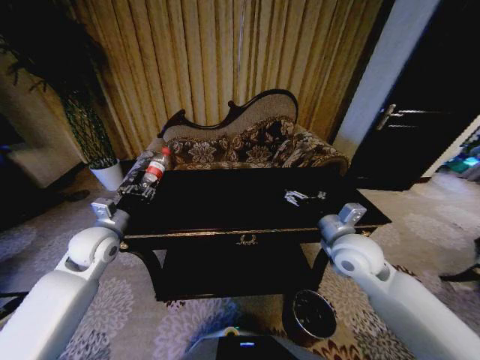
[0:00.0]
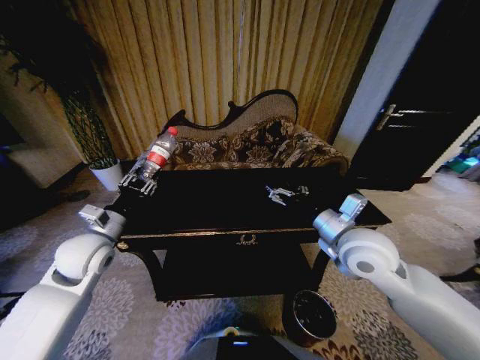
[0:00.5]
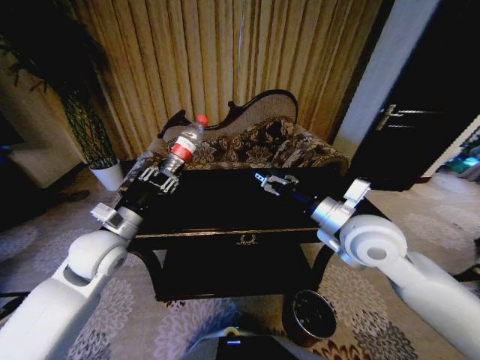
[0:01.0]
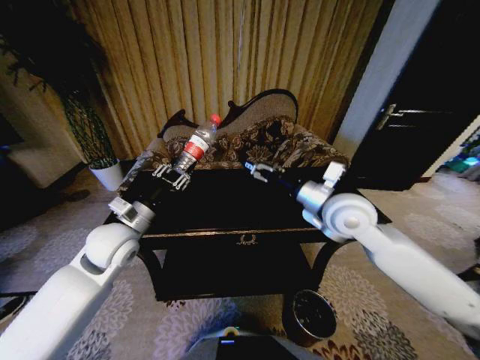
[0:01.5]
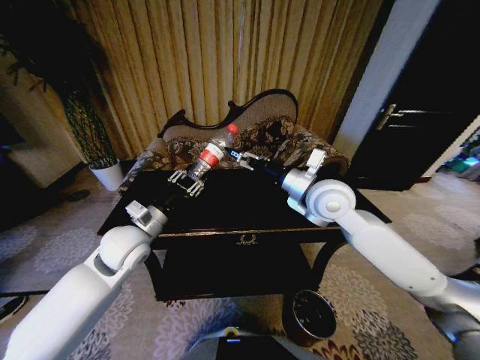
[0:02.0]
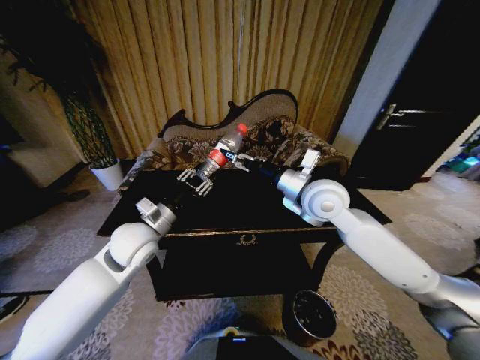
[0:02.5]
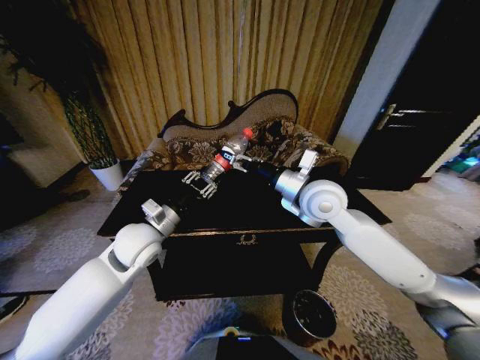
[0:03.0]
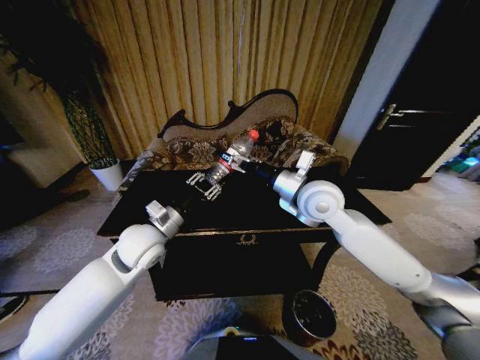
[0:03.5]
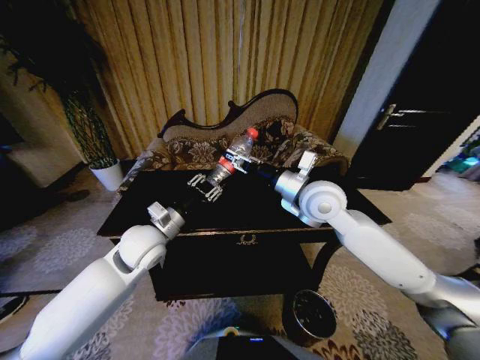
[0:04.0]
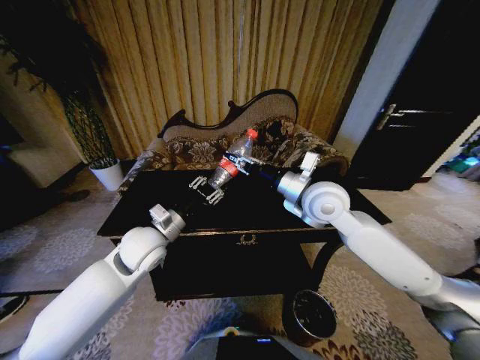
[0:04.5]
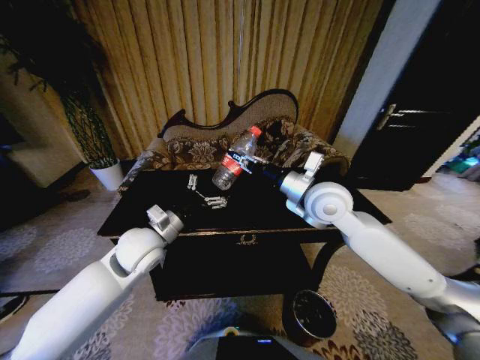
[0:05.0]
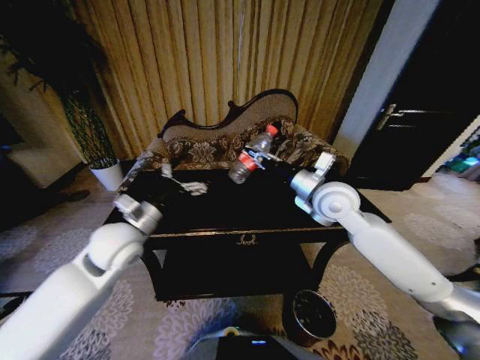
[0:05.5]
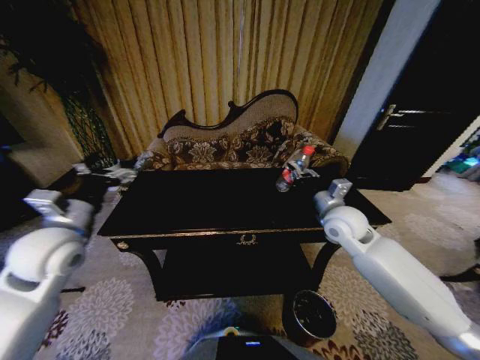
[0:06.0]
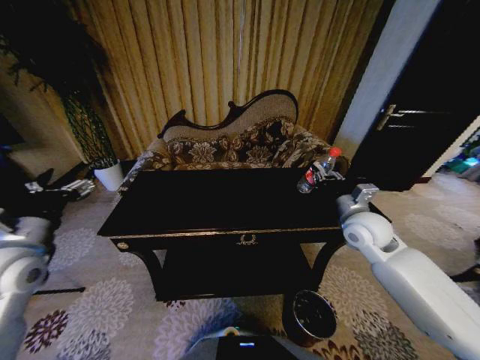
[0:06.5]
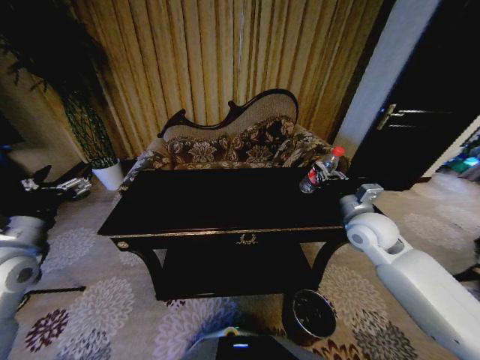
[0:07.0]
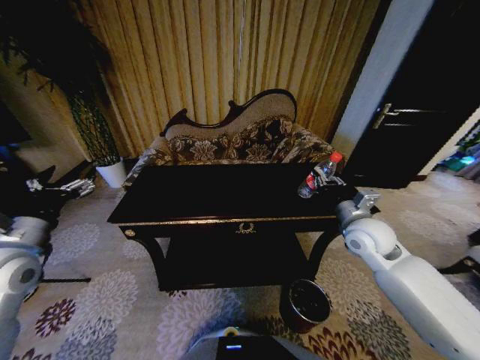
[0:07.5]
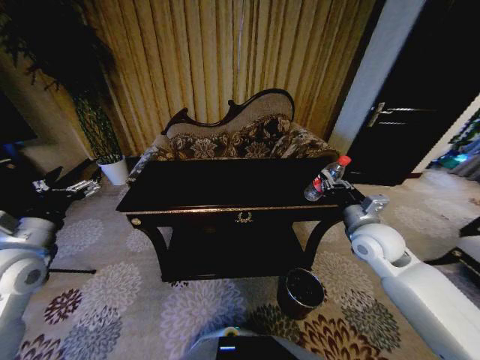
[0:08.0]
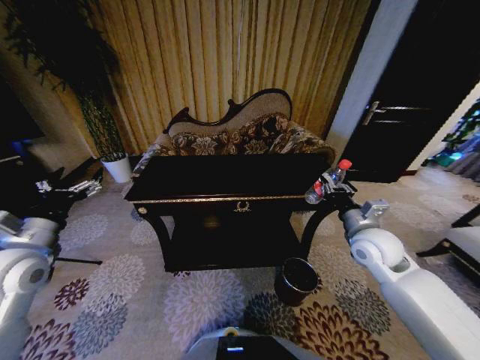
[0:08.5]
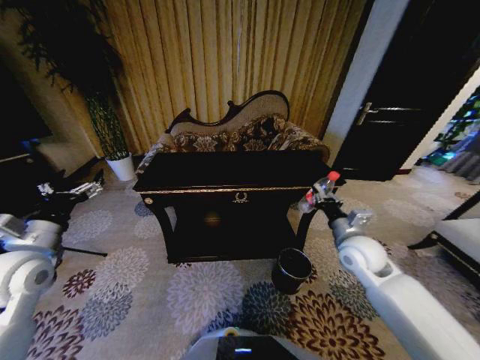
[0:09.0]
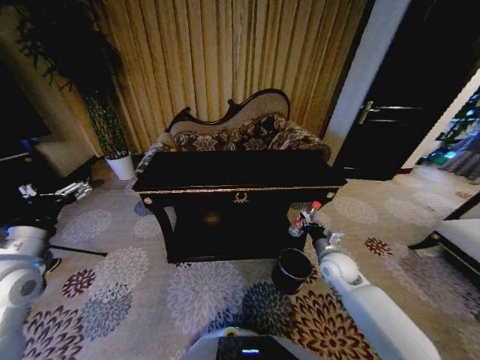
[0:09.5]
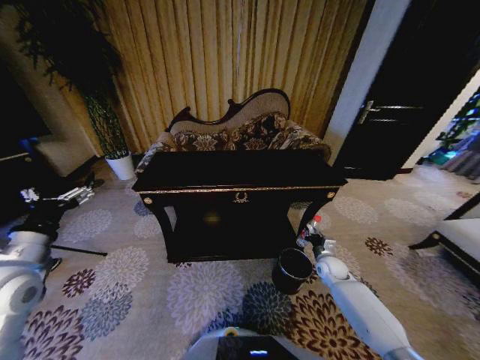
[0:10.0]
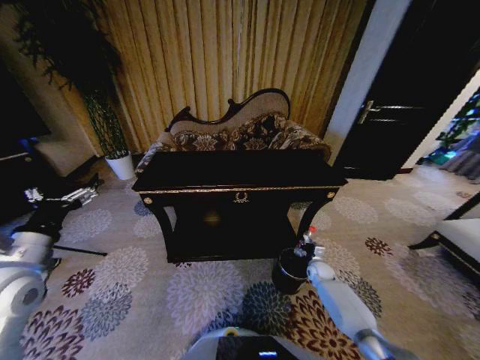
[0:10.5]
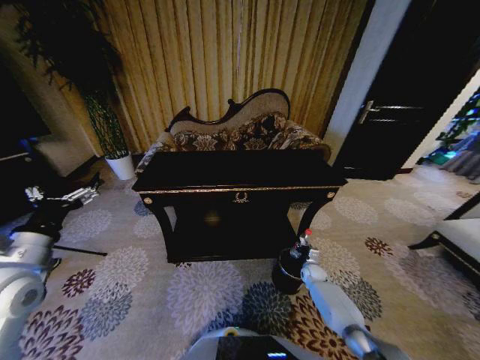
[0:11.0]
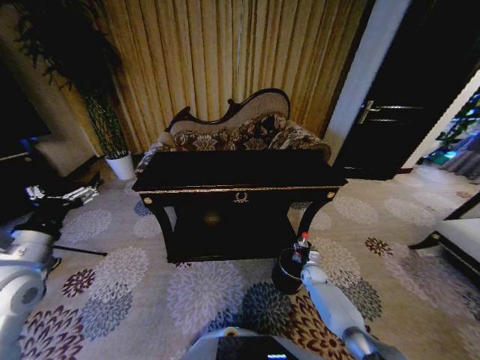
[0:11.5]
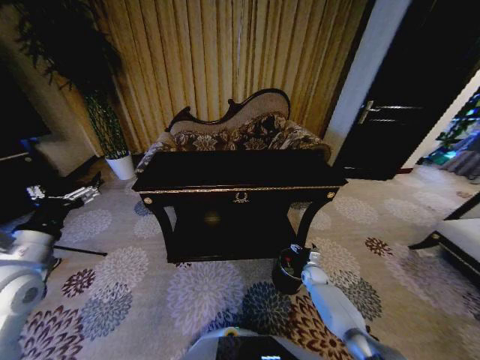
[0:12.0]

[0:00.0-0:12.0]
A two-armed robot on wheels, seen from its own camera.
Task of the whole recording: Move to the front of the table and place the trash on the table into the trash bin.
0:00.0 to 0:02.0: The left gripper shifts about 10 cm to the right; the right gripper is displaced upward, forward and to the left by approximately 15 cm.
0:02.0 to 0:04.0: The right gripper closes up.
0:04.0 to 0:06.0: The right gripper travels to the right and downward by roughly 15 cm. Meanwhile the left gripper travels to the left and upward by approximately 15 cm, and opens its fingers.
0:06.0 to 0:08.0: The right gripper goes some 10 cm to the right and backward; the left gripper shifts some 5 cm to the left.
0:08.0 to 0:10.0: The right gripper shifts approximately 25 cm downward.
0:10.0 to 0:12.0: The right gripper travels downward by about 10 cm, and opens.

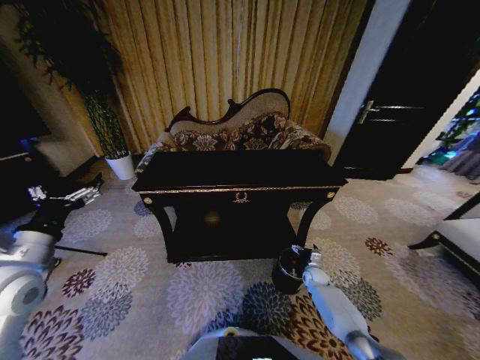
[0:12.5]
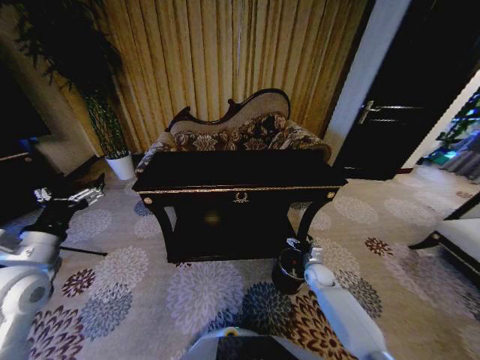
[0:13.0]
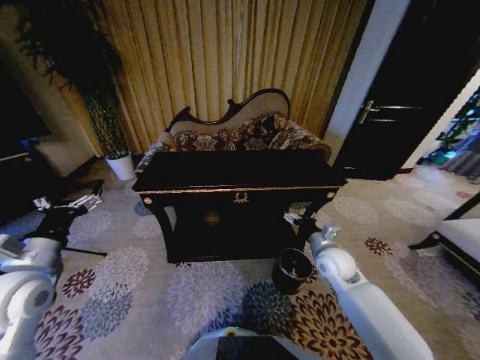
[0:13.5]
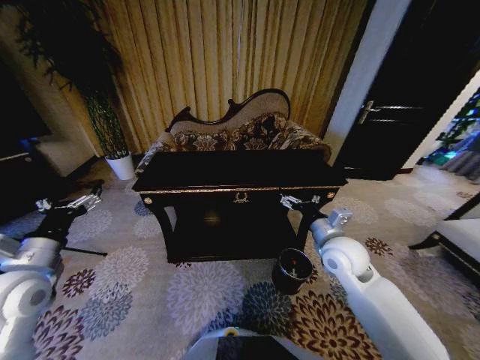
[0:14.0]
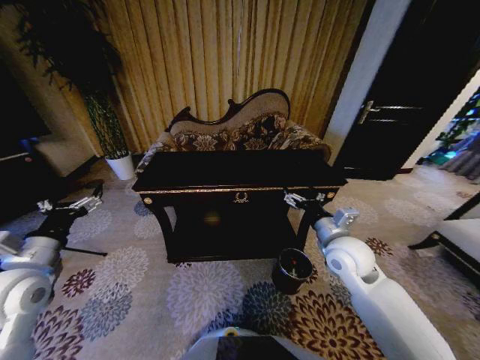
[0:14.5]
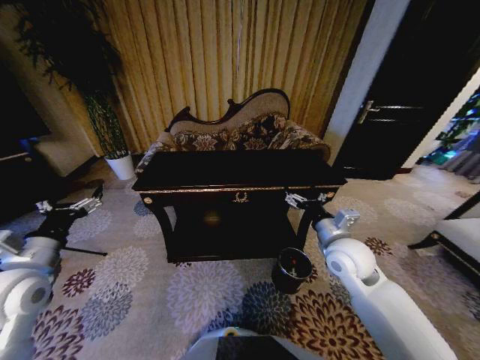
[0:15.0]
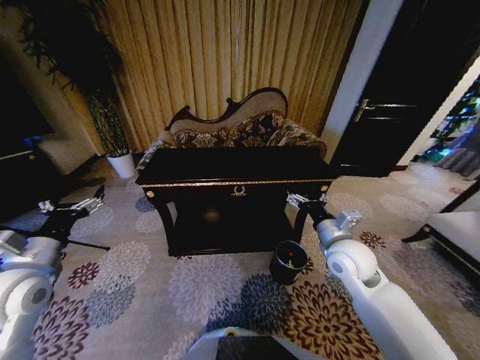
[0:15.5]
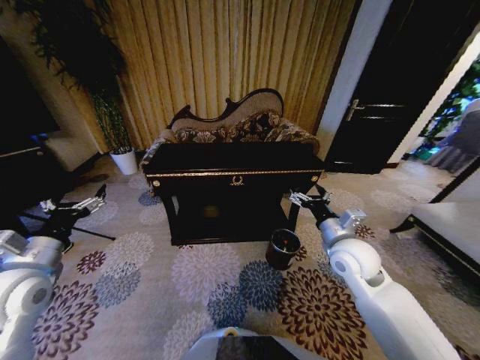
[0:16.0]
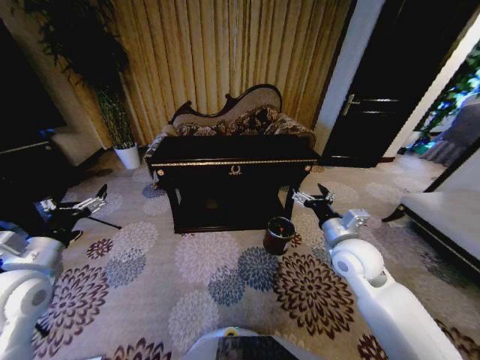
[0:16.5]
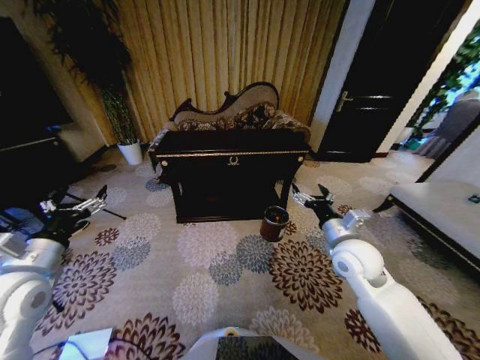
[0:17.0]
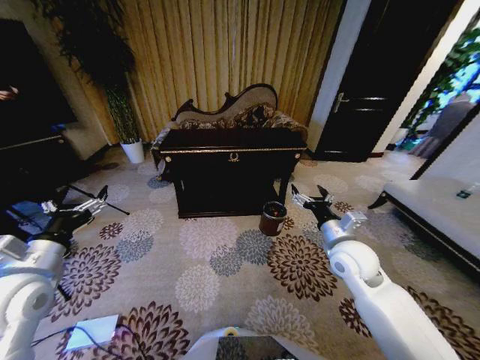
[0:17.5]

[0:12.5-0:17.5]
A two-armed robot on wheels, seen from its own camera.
Task of the whole recording: Move to the front of the table and place the trash on the table into the trash bin.
0:12.5 to 0:15.0: The right gripper travels upward by approximately 35 cm.

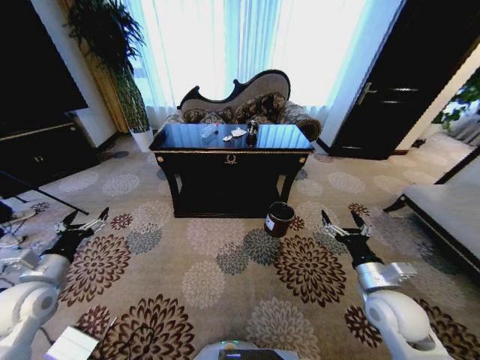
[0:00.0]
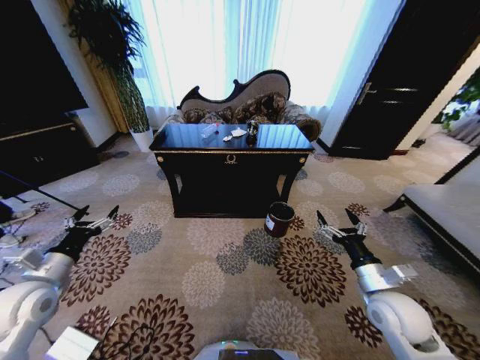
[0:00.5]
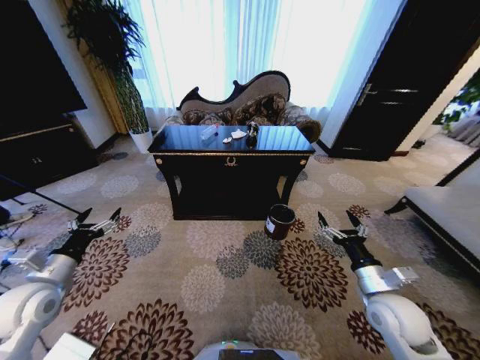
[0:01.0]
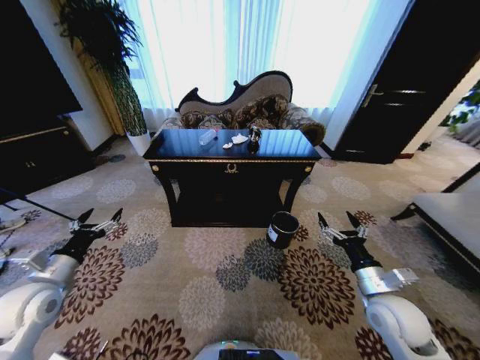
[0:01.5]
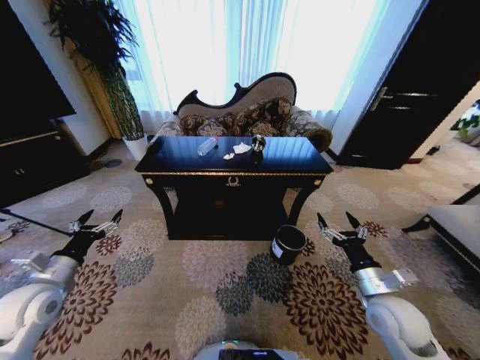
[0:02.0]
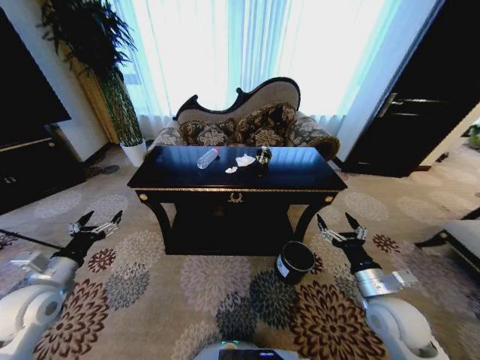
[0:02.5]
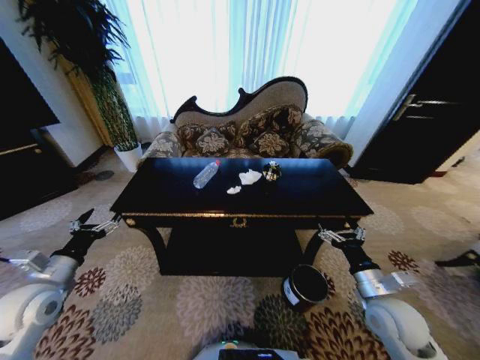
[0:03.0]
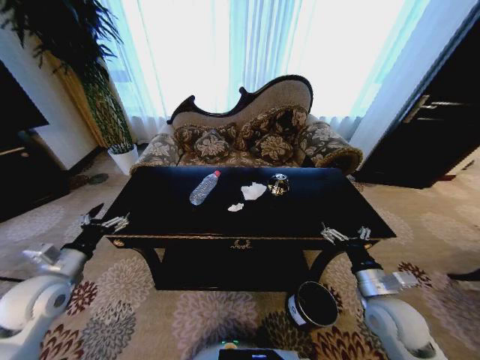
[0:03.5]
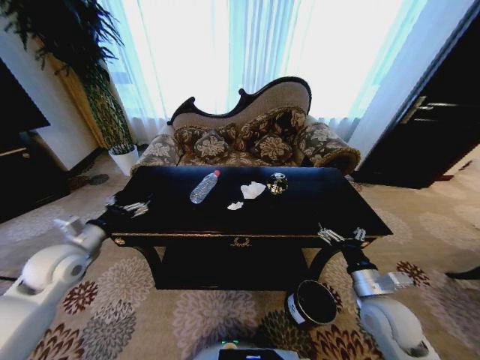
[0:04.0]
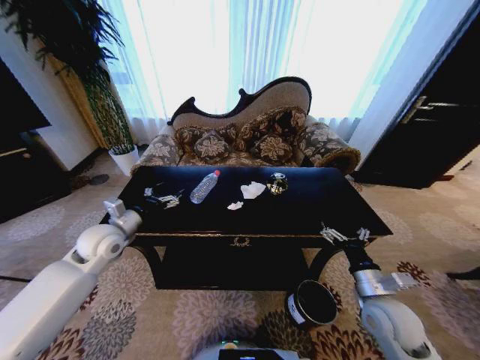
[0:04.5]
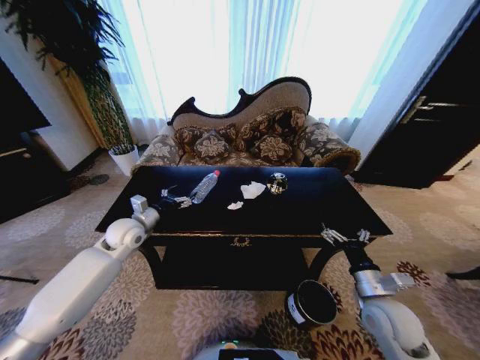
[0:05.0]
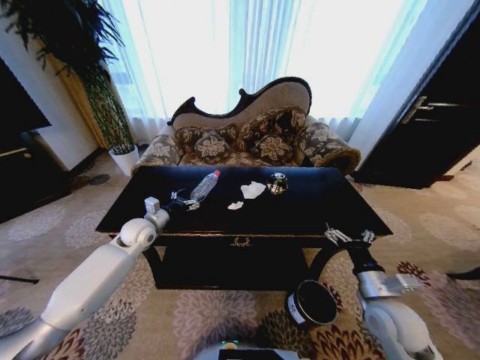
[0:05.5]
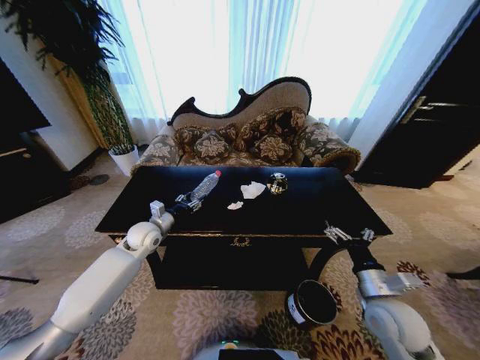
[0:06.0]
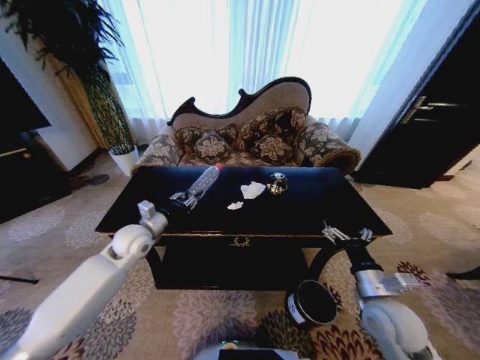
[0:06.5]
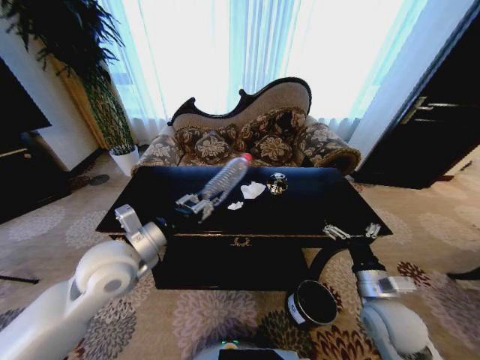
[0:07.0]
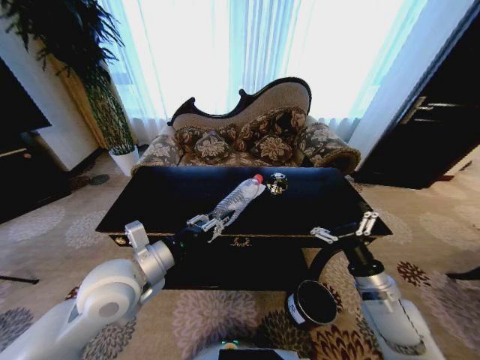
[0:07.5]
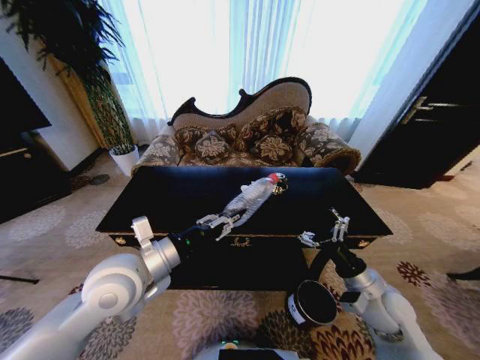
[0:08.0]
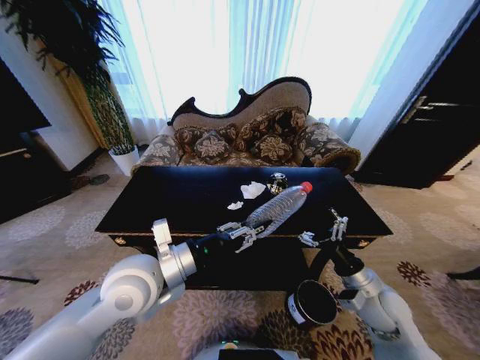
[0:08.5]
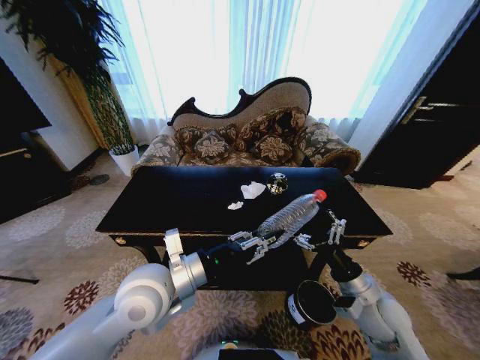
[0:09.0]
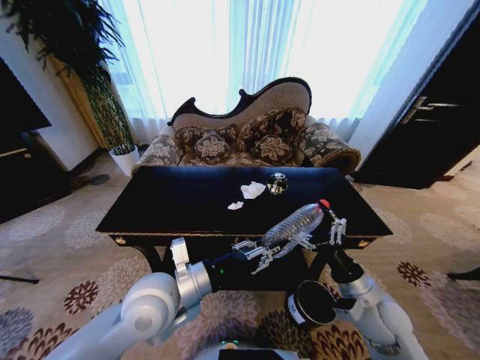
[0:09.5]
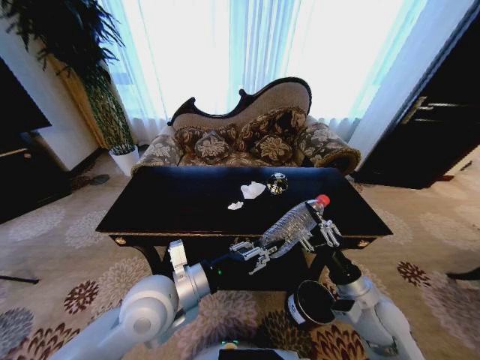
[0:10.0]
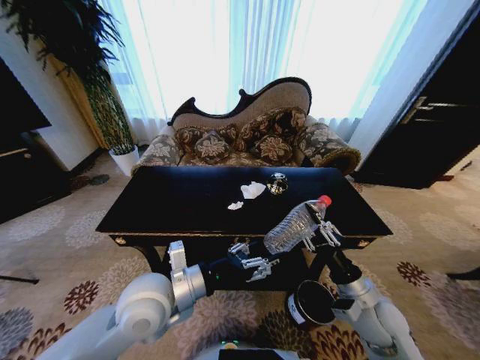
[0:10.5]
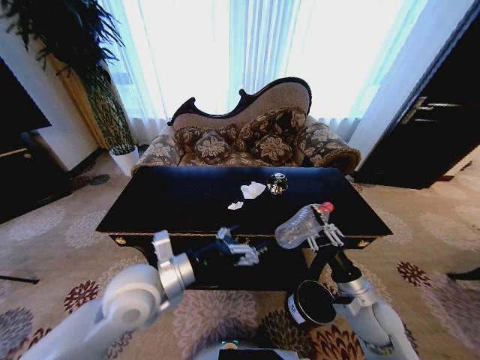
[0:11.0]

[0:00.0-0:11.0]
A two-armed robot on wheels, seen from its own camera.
Task of the whole recording: Move to the front of the table and place the trash on the table into the trash bin.
0:03.5 to 0:05.5: The left gripper heads forward and to the right, covering roughly 25 cm.
0:05.5 to 0:07.5: The left gripper goes about 25 cm backward and upward, and closes.
0:07.5 to 0:09.0: The left gripper heads to the right, covering roughly 5 cm.
0:09.0 to 0:11.0: The right gripper closes up. Meanwhile the left gripper opens its fingers.
